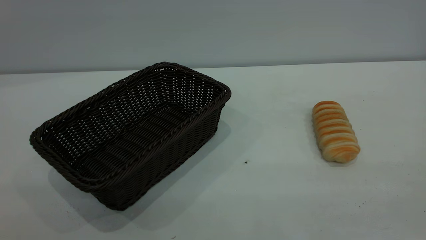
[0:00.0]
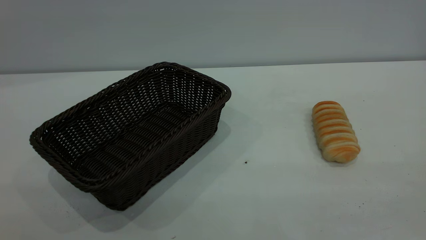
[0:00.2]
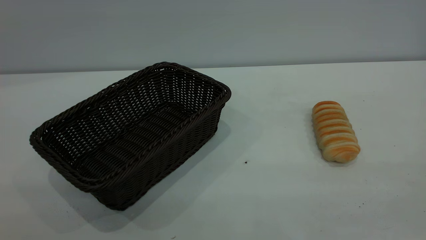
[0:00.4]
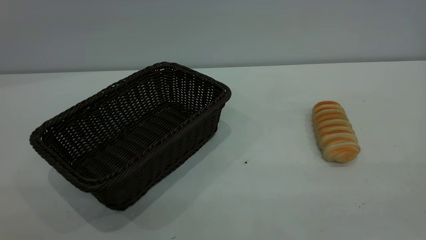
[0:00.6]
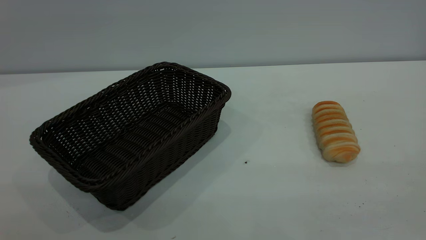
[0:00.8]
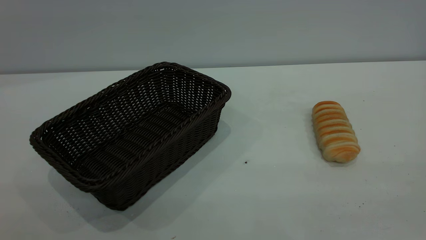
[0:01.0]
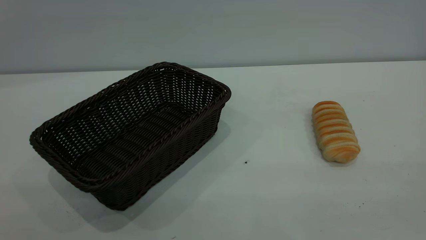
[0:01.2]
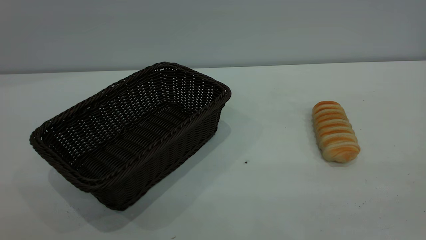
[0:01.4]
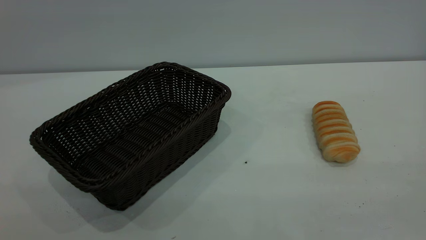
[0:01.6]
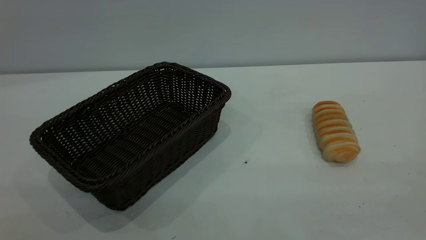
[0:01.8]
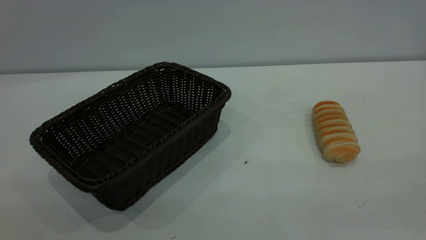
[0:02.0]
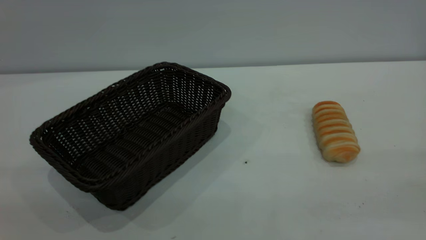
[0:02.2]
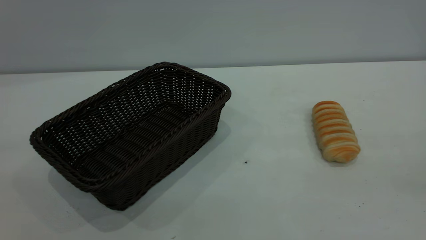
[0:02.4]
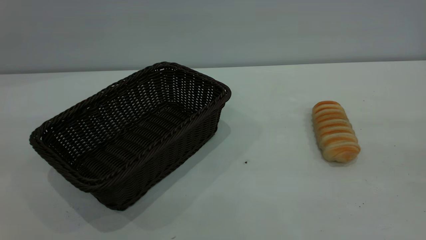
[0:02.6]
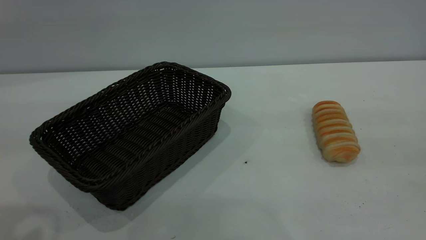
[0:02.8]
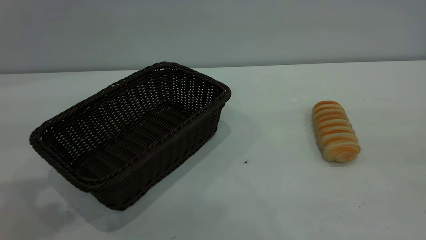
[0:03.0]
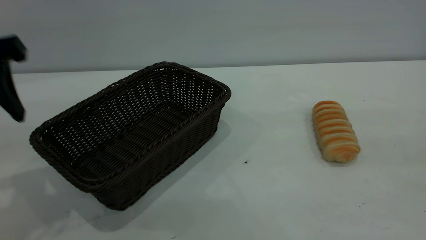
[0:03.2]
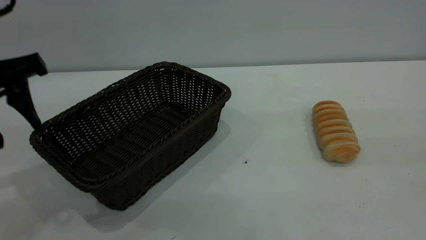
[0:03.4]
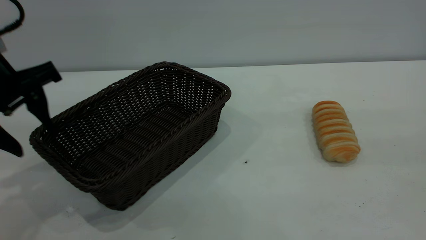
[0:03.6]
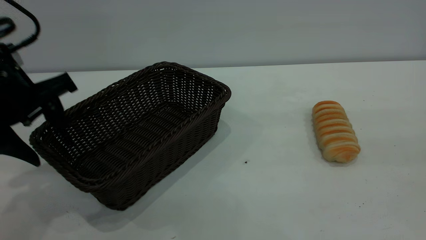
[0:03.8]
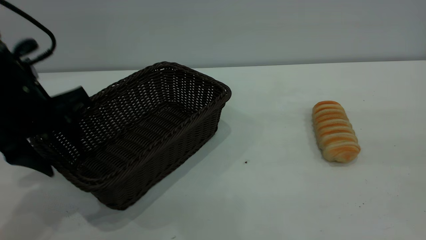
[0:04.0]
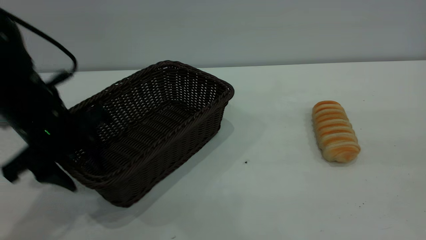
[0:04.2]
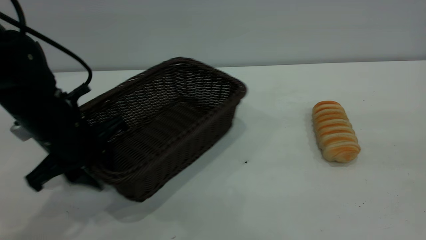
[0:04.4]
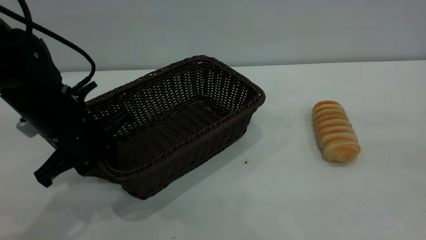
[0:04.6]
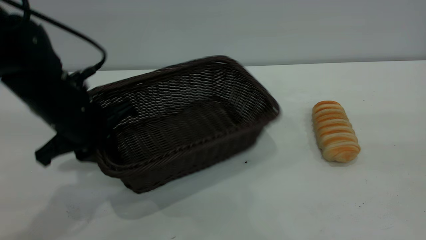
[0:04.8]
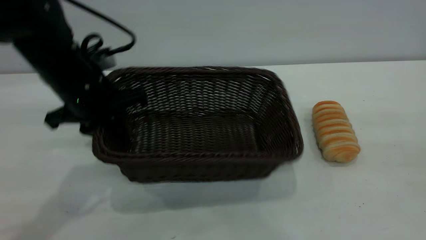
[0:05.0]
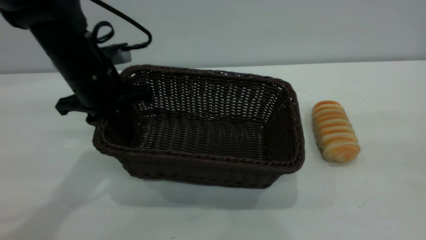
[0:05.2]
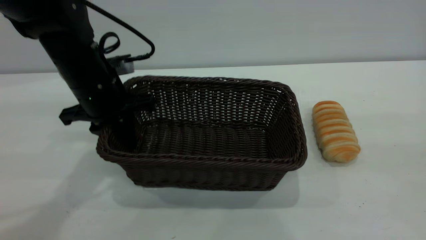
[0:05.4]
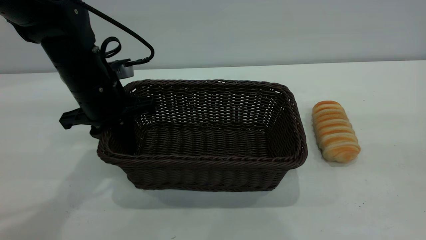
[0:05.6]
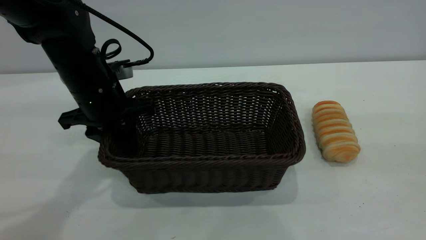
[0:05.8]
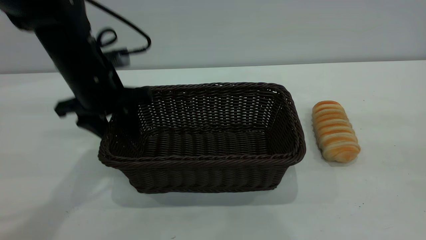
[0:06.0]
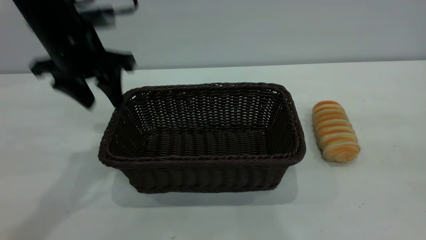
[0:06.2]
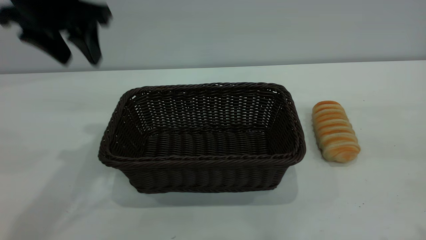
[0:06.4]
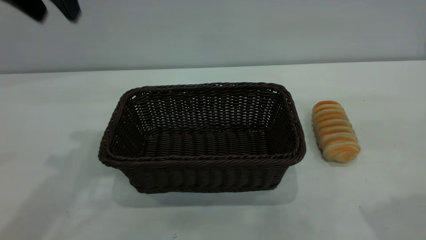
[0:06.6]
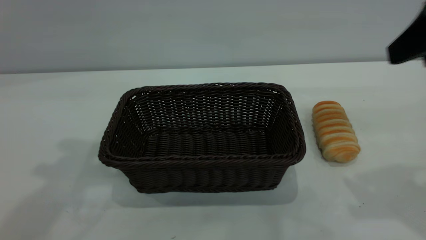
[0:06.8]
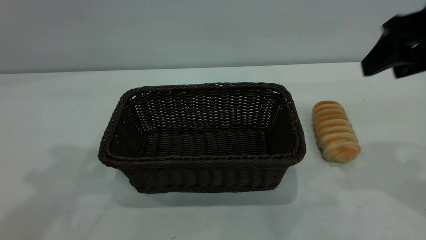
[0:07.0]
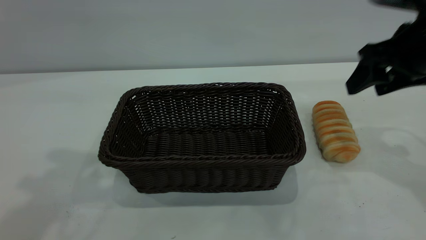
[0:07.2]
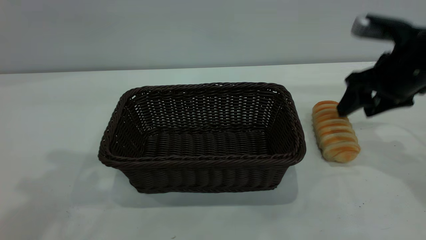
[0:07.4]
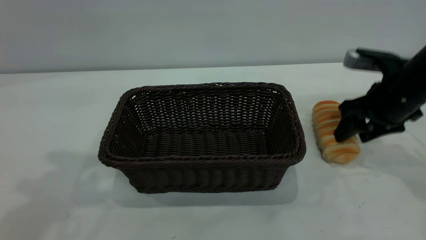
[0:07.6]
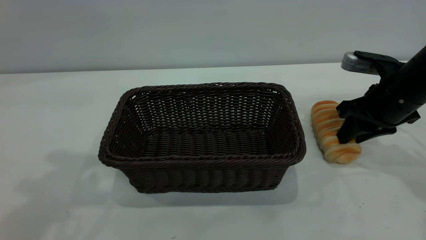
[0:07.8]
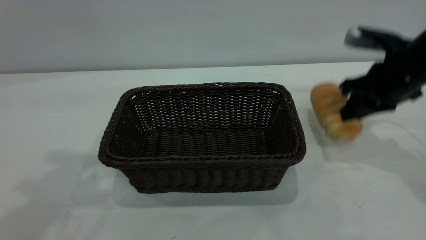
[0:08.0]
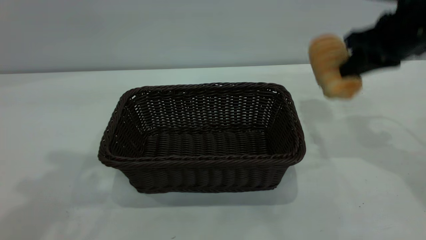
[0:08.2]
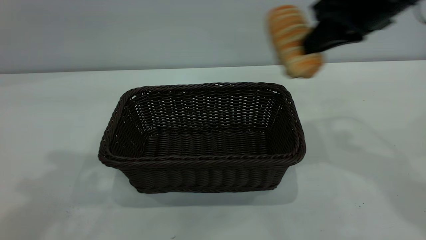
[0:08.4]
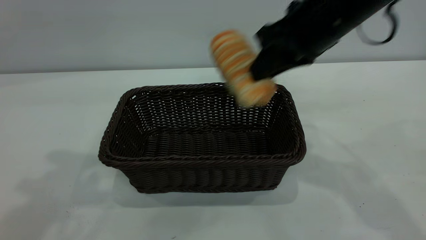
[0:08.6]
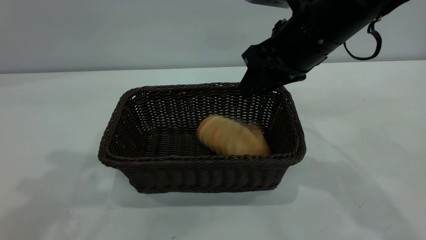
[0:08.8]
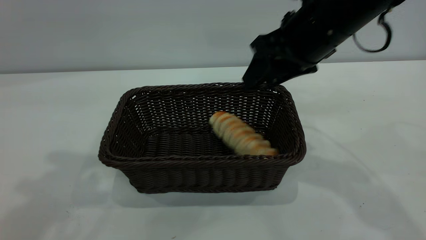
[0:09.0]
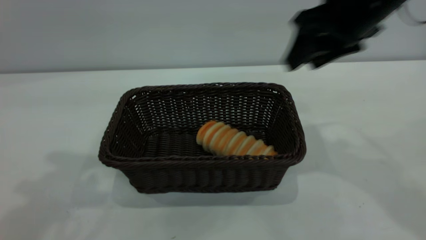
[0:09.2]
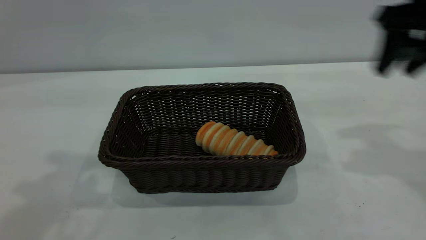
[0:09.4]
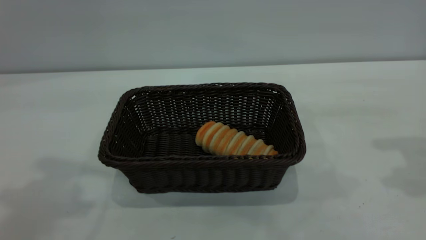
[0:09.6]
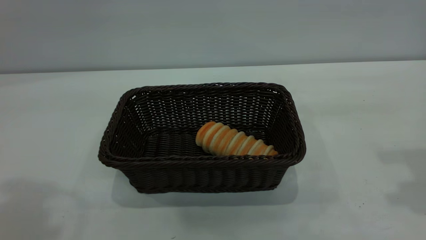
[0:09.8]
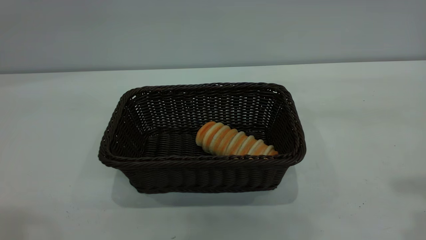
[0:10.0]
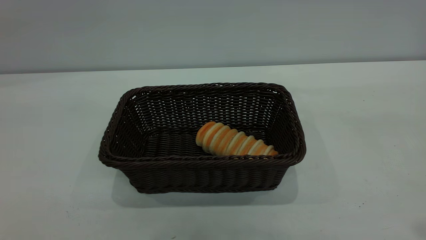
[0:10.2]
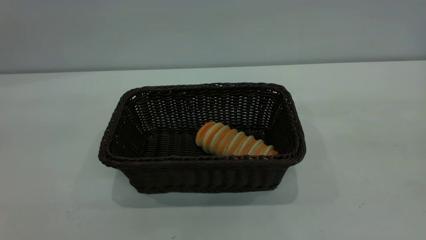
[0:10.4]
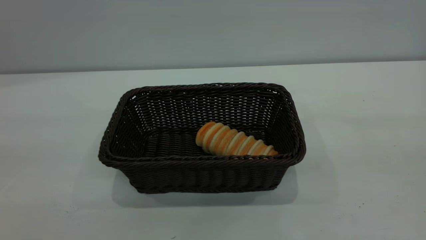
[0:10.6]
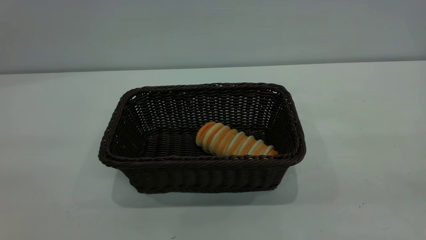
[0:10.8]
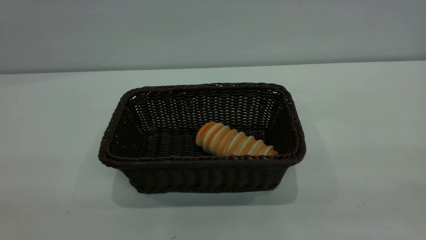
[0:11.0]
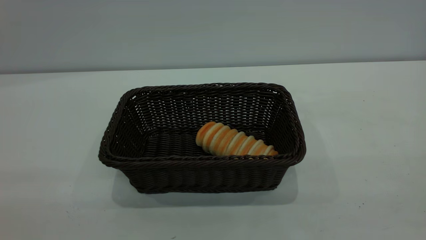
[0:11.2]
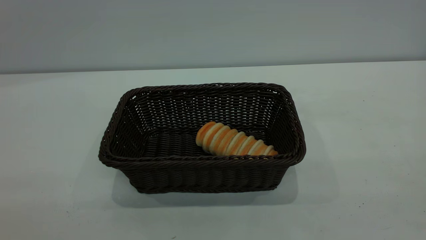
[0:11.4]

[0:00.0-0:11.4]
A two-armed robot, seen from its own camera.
Task of the whole recording: One hand grasps the black basket and places it in the middle of the table, while the other hand picks up the long bread and puts it into the black basket.
Step, 0:00.0 to 0:06.2: Move the basket to the center of view.
Step, 0:08.2 to 0:09.0: place the bread into the basket.
0:00.0 to 0:01.4: Both grippers stay about where they are.
0:02.8 to 0:04.2: The left gripper travels downward and forward by some 25 cm.
0:04.2 to 0:05.6: The left gripper heads forward, covering some 5 cm, and closes up.
0:05.6 to 0:07.2: The right gripper heads forward and downward, covering some 30 cm, while the left gripper is displaced upward by roughly 25 cm, and opens its fingers.
0:07.2 to 0:08.6: The right gripper goes roughly 15 cm to the left, goes downward and returns, approximately 10 cm each way, and closes up.
0:08.6 to 0:10.0: The right gripper travels to the right, upward and backward by some 25 cm, and opens its fingers. Meanwhile the left gripper is displaced backward and upward by approximately 15 cm.
